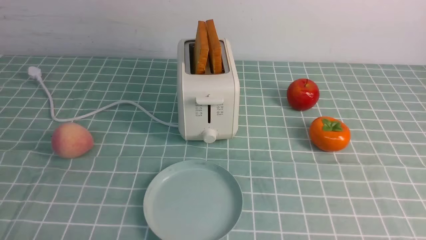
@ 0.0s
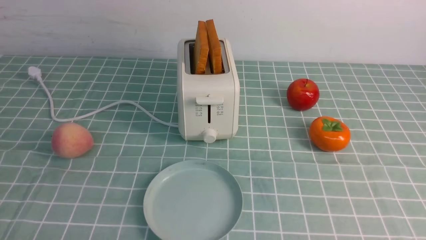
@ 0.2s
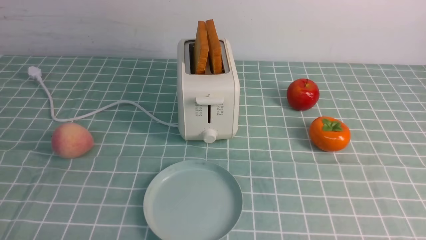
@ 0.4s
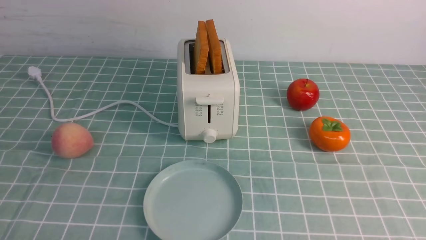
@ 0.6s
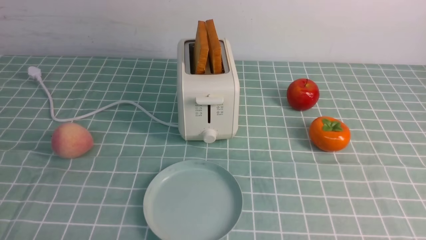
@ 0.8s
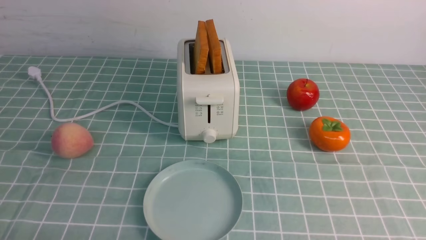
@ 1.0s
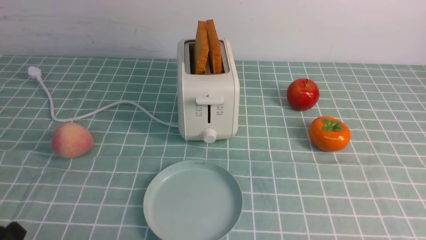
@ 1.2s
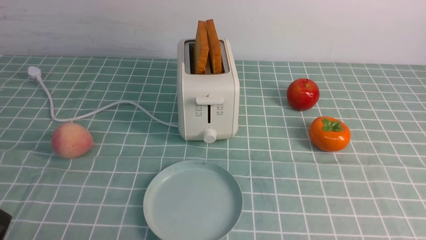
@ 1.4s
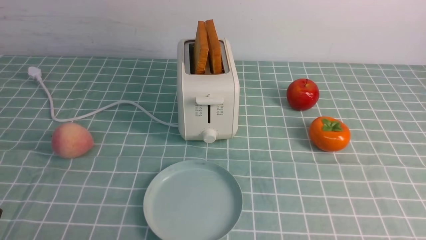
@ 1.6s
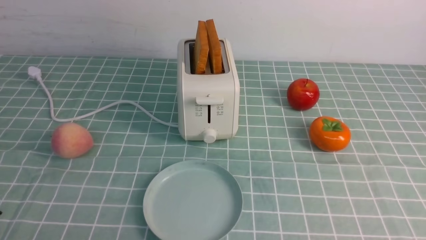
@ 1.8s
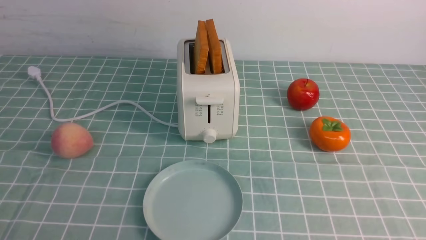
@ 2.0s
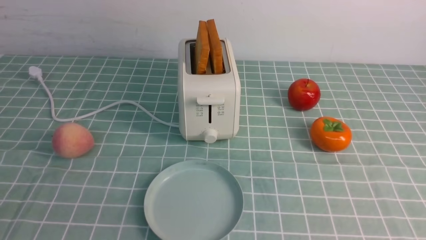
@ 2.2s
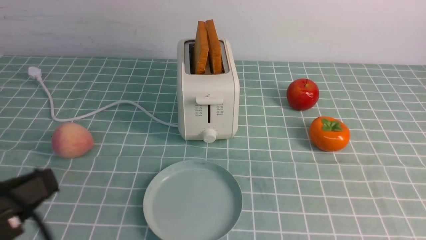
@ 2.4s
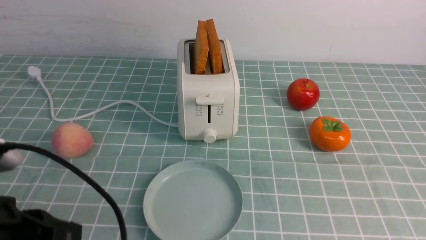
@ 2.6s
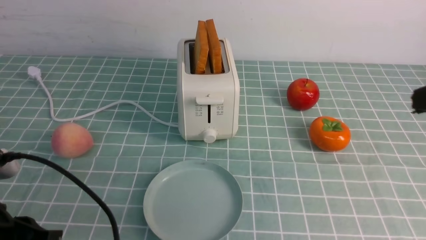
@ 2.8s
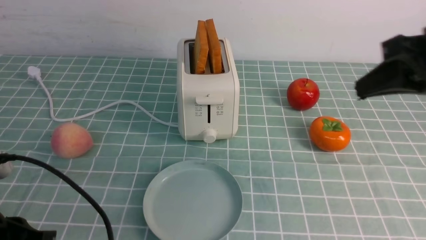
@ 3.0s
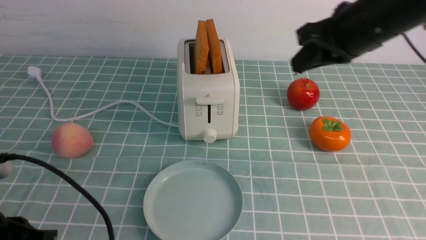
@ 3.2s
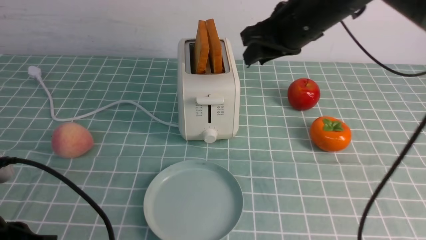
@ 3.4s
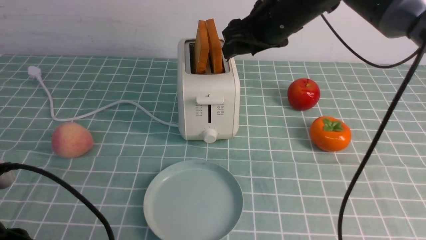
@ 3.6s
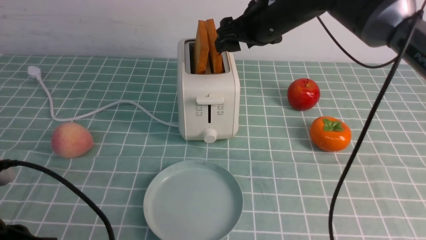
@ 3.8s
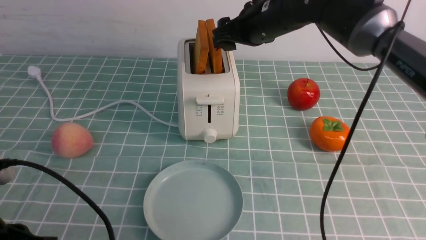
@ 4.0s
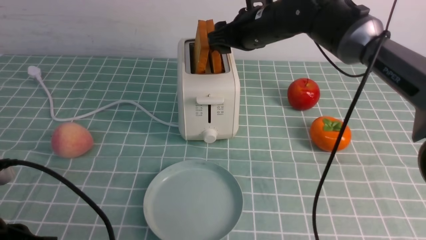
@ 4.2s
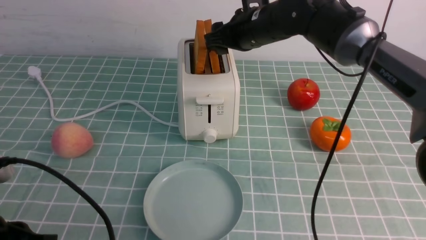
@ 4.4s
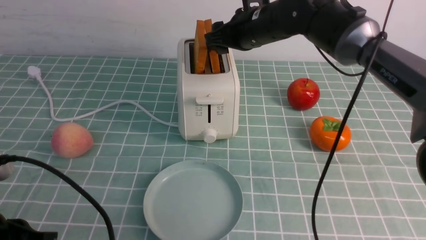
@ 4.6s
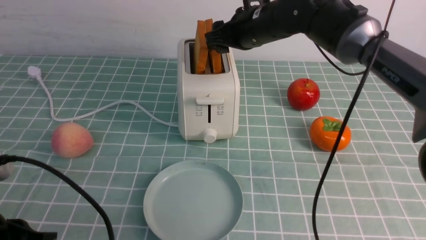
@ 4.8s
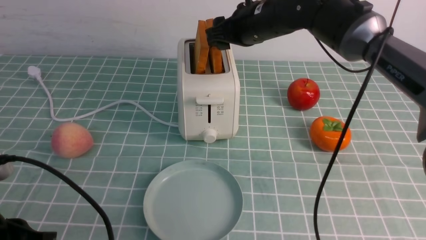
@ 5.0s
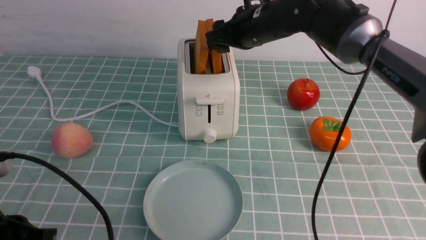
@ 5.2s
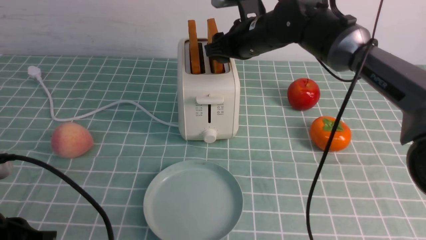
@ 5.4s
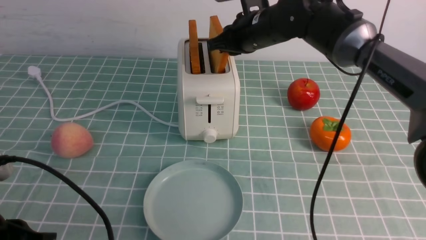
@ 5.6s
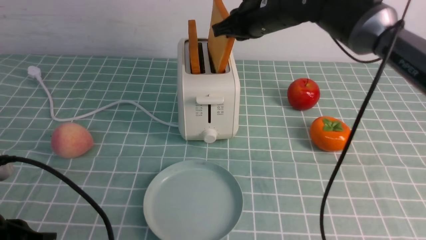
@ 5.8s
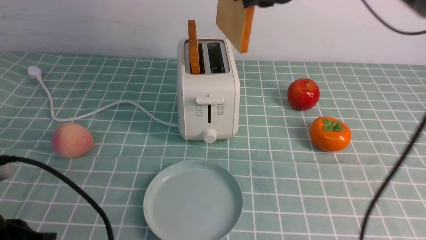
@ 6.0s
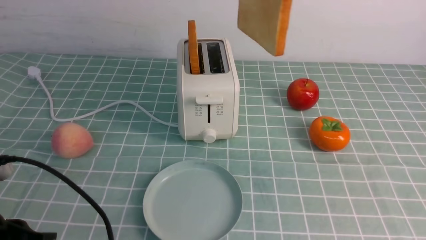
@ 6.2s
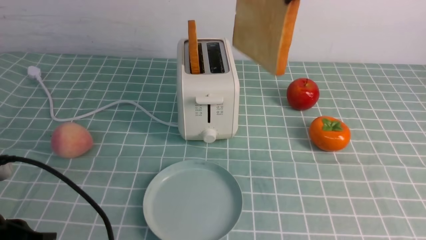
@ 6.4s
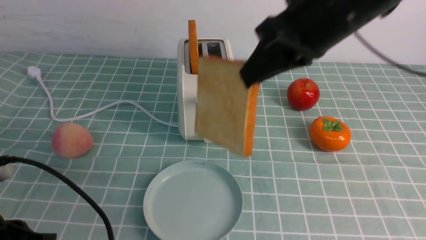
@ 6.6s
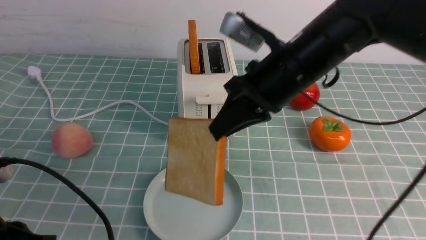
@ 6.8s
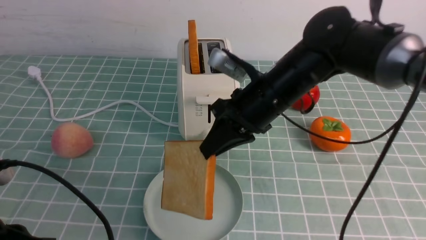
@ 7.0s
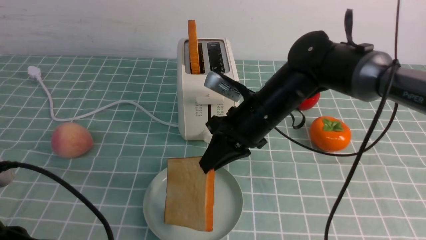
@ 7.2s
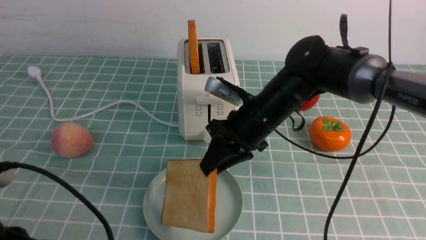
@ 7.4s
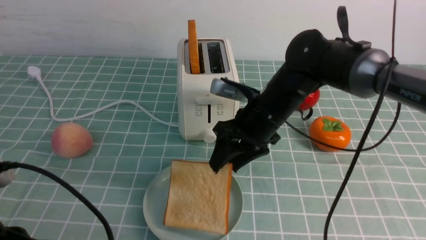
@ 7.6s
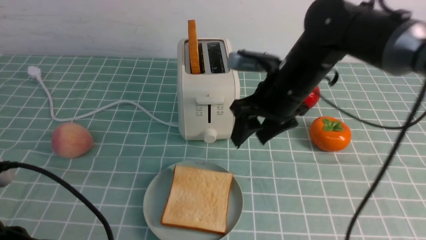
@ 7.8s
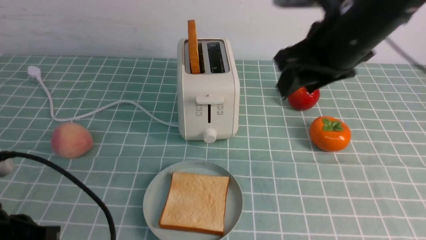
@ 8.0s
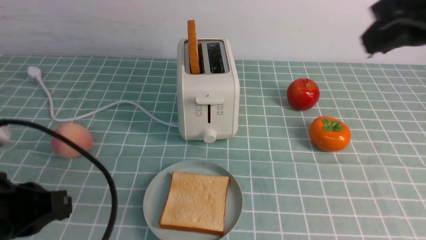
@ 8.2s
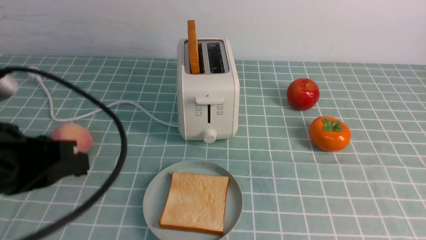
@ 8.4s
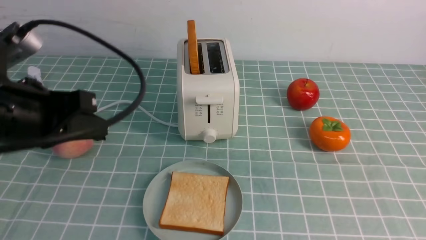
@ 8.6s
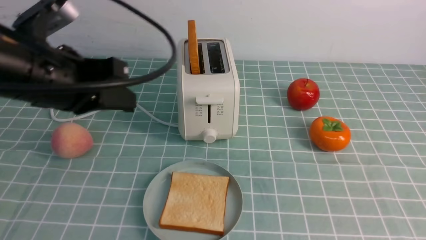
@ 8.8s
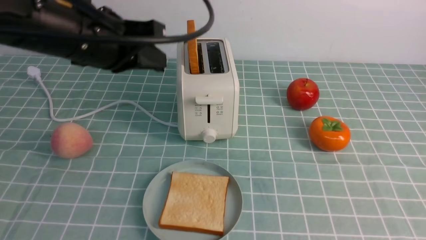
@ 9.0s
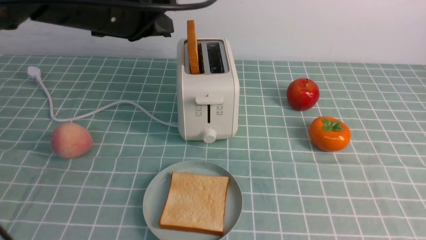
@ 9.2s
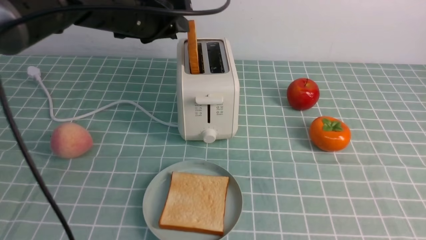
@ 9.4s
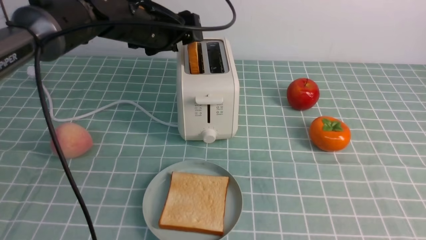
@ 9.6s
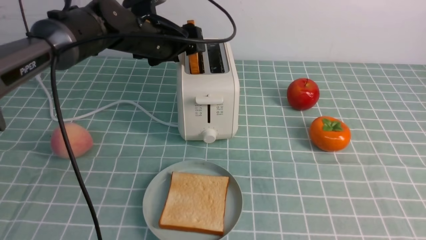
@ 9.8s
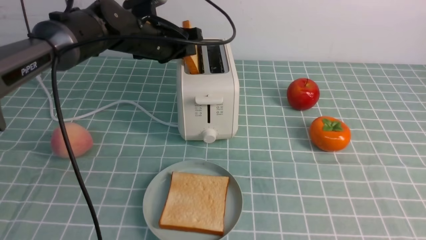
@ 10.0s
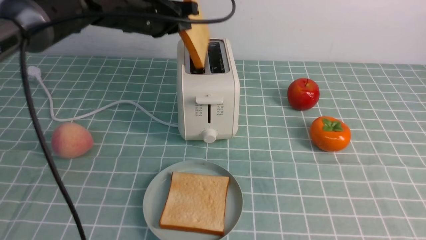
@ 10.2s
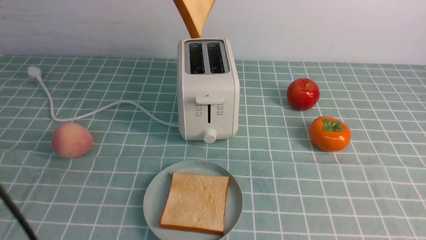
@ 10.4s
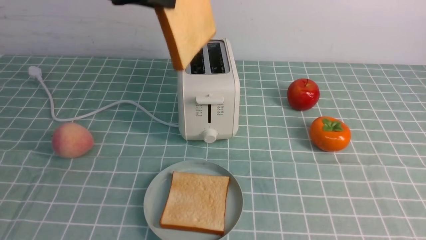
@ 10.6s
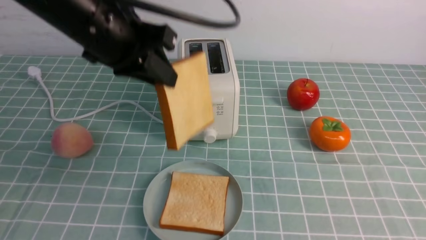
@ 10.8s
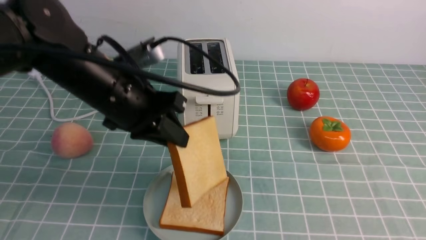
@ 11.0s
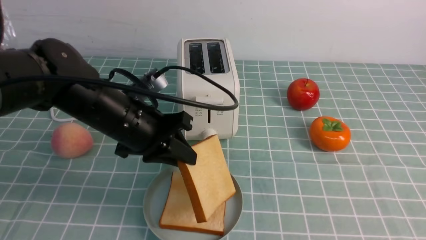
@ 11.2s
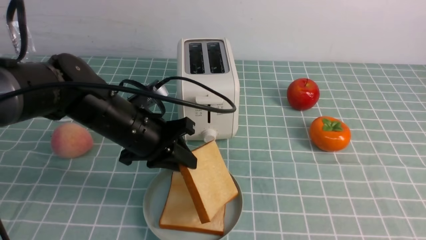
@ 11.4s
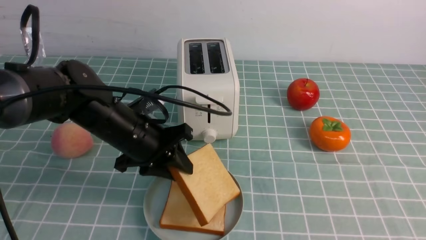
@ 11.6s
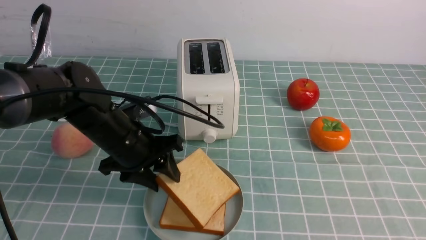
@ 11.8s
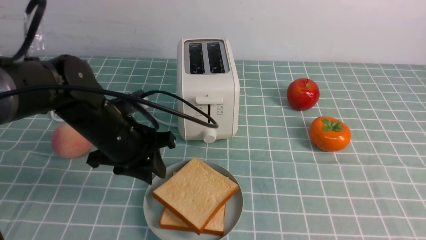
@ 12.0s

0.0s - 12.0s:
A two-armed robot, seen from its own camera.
Task of the whole recording: take toasted bread from bread machine on blue coffee table place on plate.
Step, 0.0s - 5.8s: use the right arm to take out a slice of bread.
Step, 6.0s - 8.0s: use the right arm to put a slice of bread into the plate.
Step, 8.2s - 10.2s: use the left arm to take out a slice of bread.
1.6s - 3.0s: The right gripper moves upward and forward, approximately 30 cm, and closes its fingers, while the left gripper travels forward and upward by approximately 10 cm, and closes up.
3.0s - 4.4s: The right gripper shifts some 25 cm forward, to the left and downward, and opens.
4.4s - 6.0s: The right gripper moves upward and backward, some 15 cm, and closes.
6.0s - 7.6s: The right gripper moves downward, roughly 20 cm, and opens.
7.6s - 9.0s: The right gripper travels backward and to the right by about 40 cm, and closes. The left gripper is displaced forward, upward and to the right by approximately 25 cm.
9.0s - 10.4s: The left gripper heads forward, covering approximately 5 cm, and opens and closes again.
10.4s - 12.0s: The left gripper moves downward, roughly 20 cm.

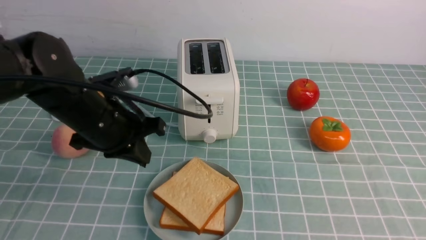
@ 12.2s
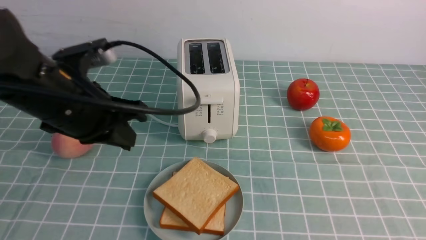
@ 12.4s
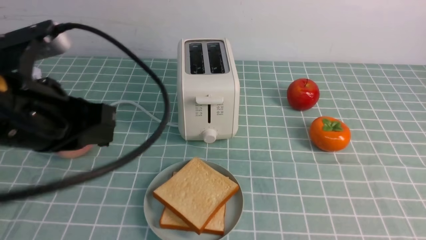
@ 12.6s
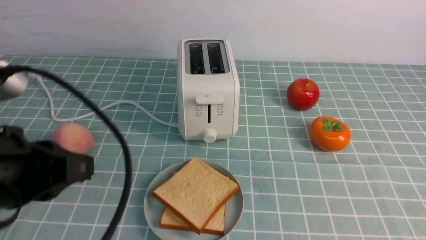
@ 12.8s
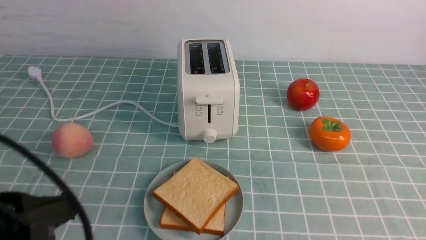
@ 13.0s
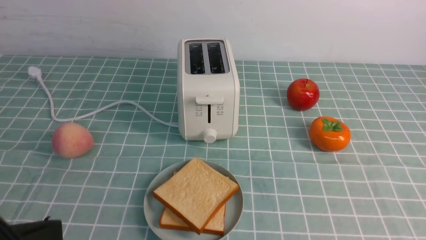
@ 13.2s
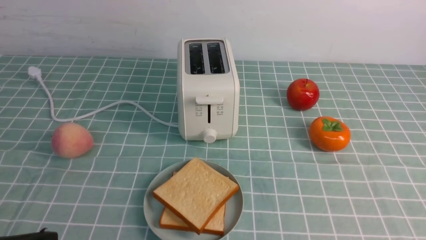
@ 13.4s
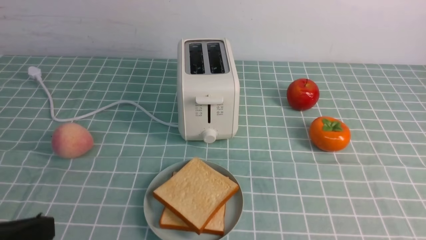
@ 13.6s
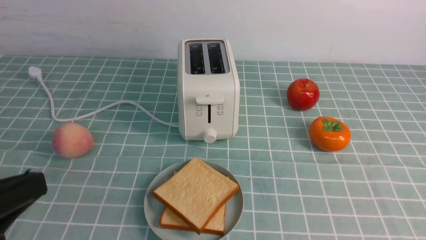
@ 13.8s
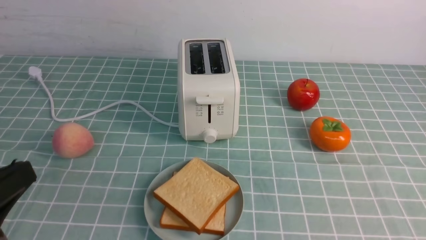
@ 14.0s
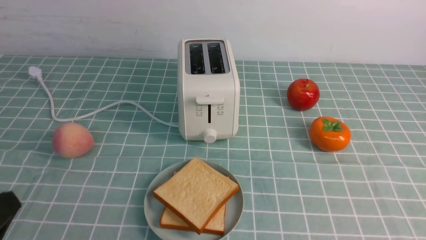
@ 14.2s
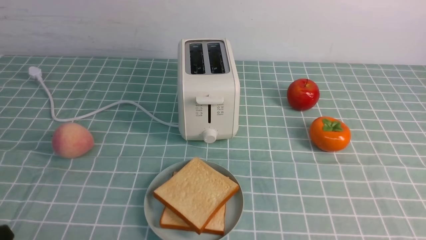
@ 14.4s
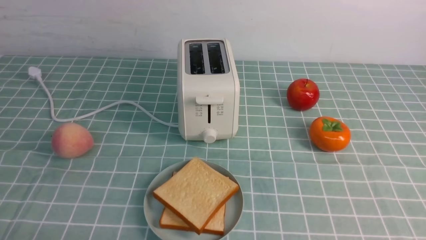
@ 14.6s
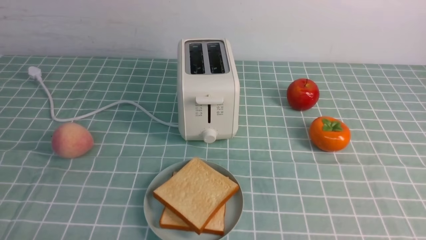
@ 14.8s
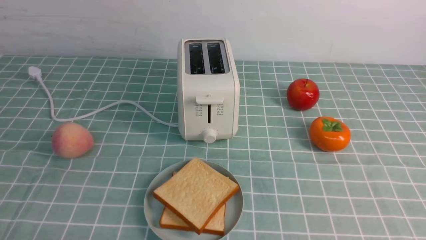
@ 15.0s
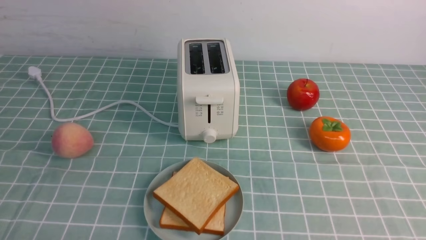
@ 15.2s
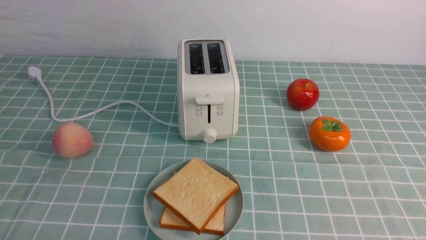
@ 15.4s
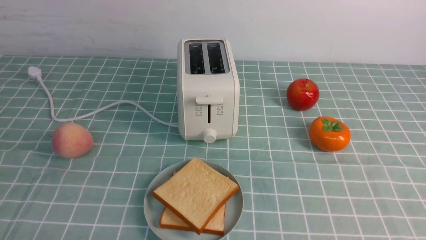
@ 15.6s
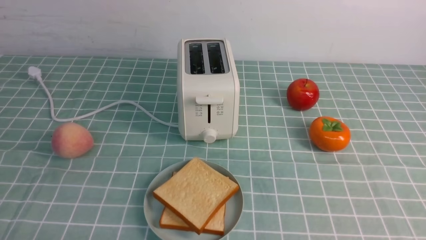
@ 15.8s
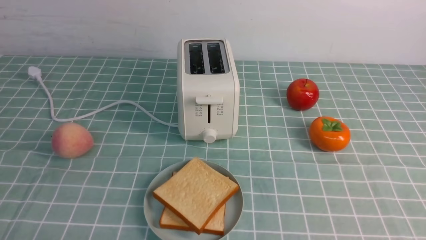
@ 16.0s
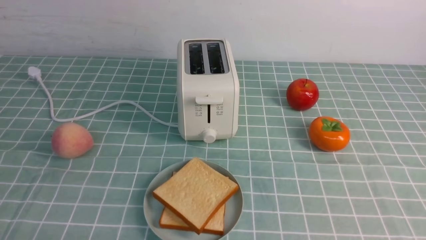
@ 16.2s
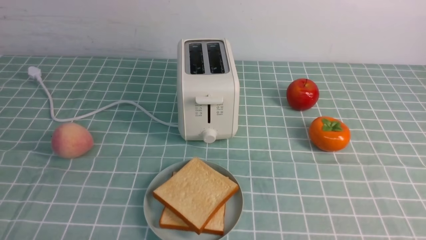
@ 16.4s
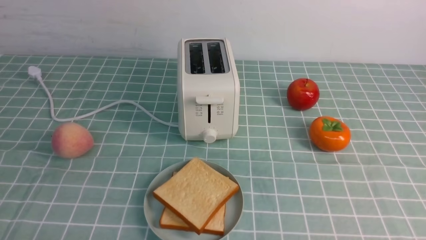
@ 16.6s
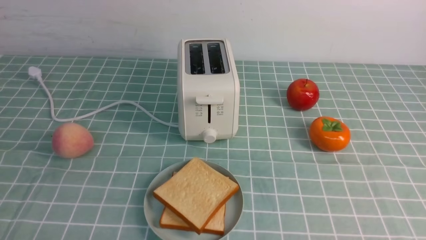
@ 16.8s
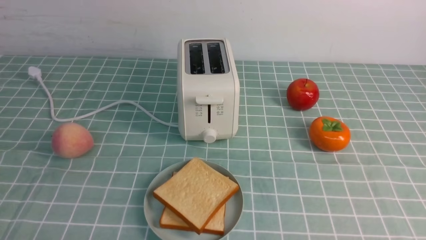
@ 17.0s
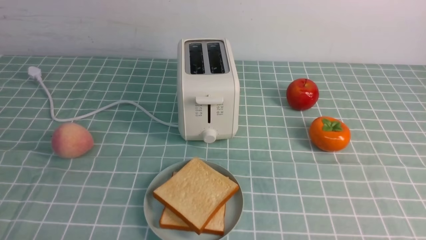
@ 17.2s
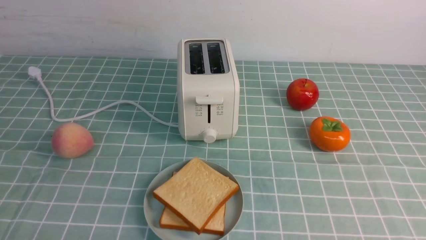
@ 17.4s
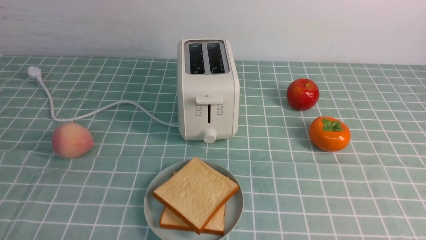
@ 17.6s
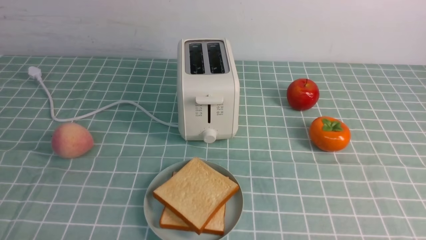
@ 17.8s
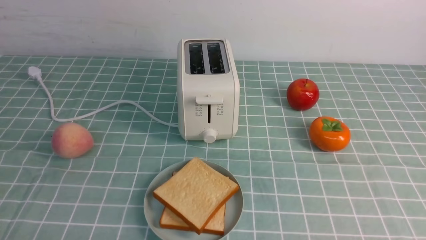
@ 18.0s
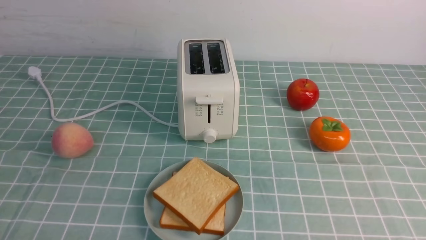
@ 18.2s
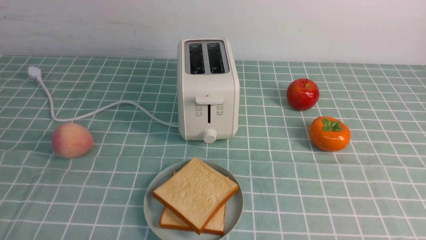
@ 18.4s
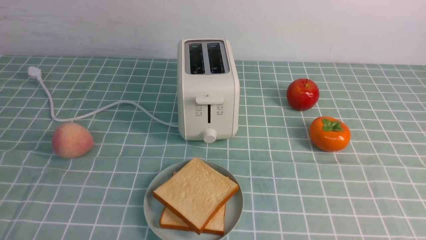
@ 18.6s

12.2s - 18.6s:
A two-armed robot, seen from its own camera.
Task of the whole recording: take toasted bread from bread machine on blue coffee table place on plate.
12.2s - 13.8s: The left gripper shifts approximately 20 cm backward.
13.8s - 15.4s: The left gripper heads downward, covering some 15 cm.
17.0s - 18.6s: Neither gripper changes place.
